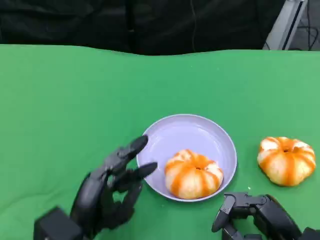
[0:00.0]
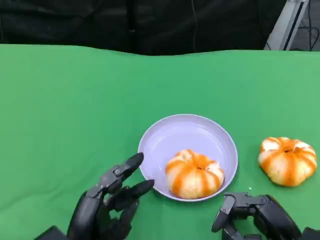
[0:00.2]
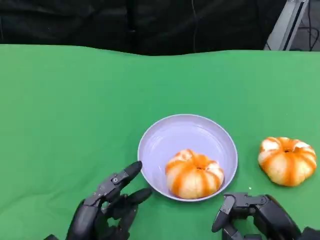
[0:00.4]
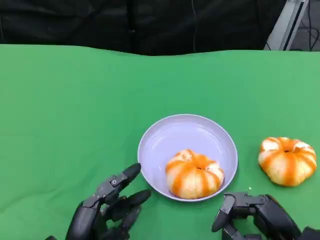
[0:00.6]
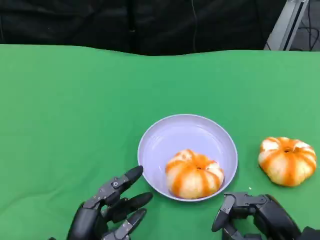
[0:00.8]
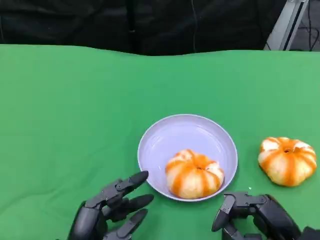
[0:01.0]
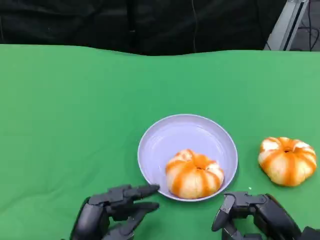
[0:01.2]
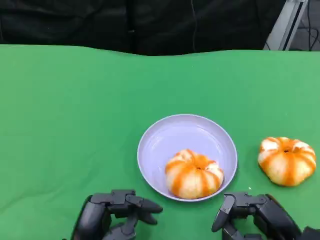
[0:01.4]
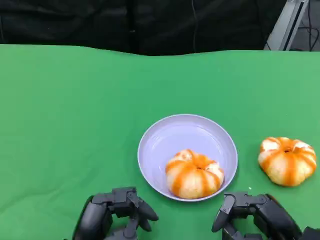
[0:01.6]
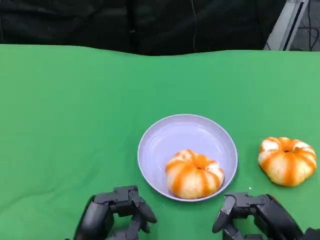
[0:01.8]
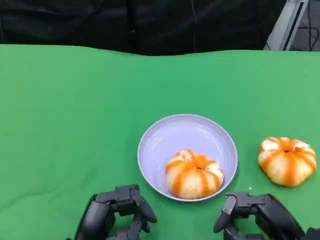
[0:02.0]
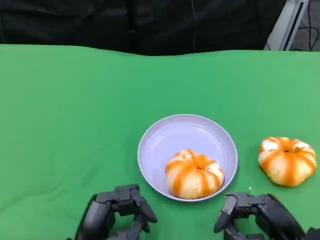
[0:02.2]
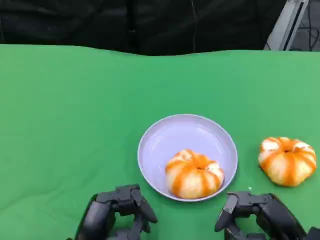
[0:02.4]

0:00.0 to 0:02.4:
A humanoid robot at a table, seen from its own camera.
Task of the whole recording: Grasp the bread from the table and place it into the plate.
0:00.0 to 0:01.2: The hands make only small movements.
0:01.2 to 0:02.4: Both hands stay about where they are.

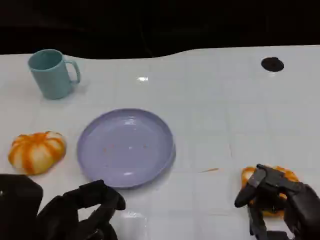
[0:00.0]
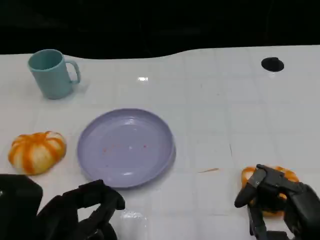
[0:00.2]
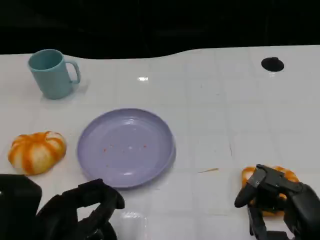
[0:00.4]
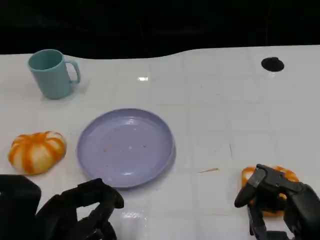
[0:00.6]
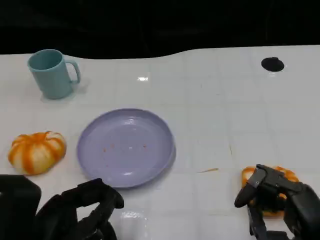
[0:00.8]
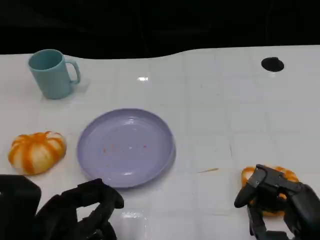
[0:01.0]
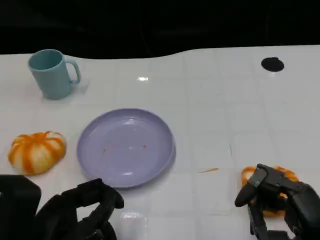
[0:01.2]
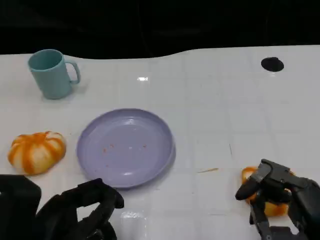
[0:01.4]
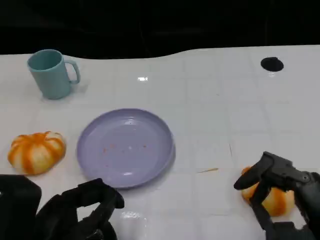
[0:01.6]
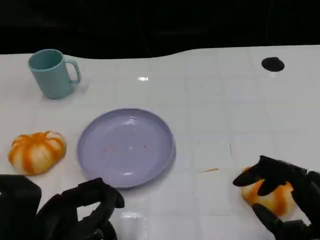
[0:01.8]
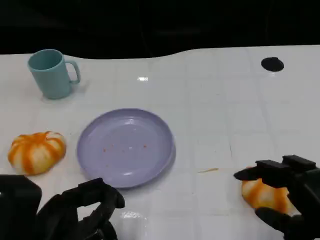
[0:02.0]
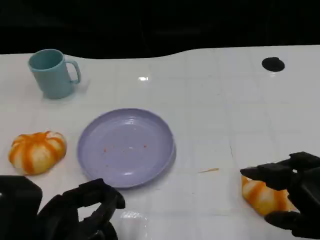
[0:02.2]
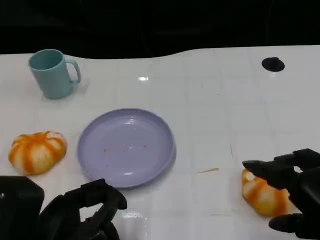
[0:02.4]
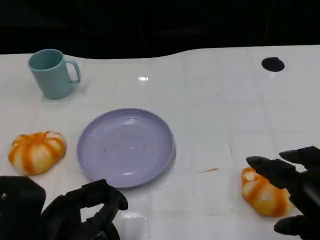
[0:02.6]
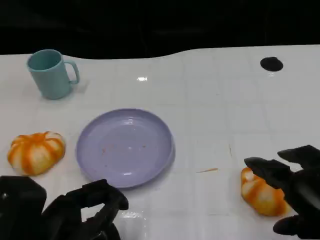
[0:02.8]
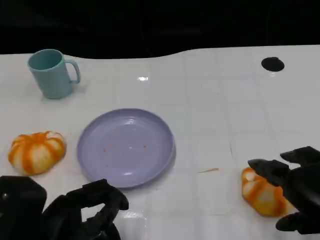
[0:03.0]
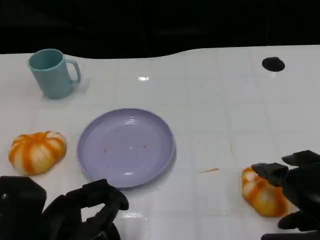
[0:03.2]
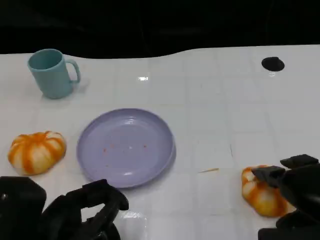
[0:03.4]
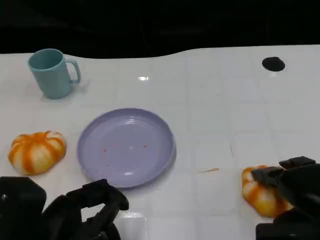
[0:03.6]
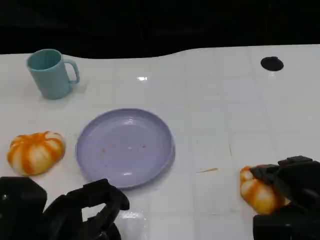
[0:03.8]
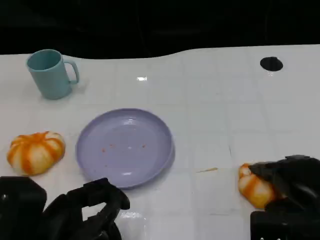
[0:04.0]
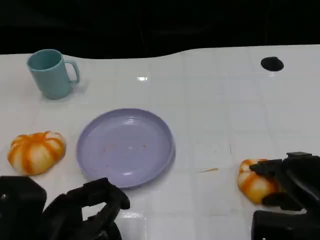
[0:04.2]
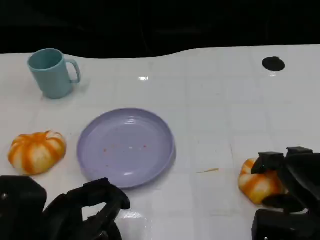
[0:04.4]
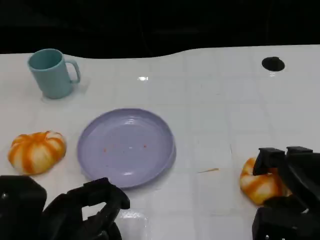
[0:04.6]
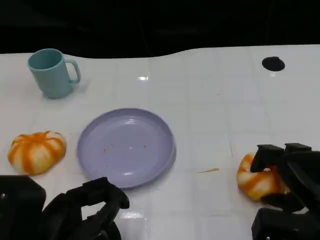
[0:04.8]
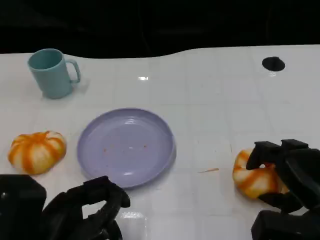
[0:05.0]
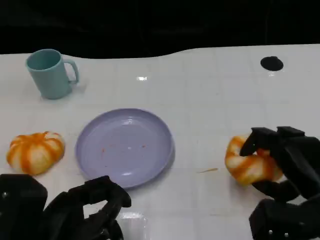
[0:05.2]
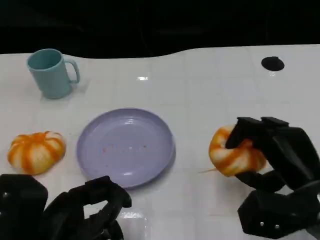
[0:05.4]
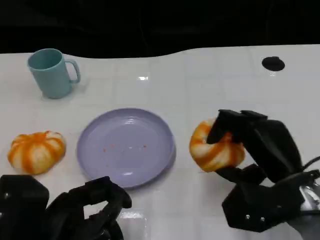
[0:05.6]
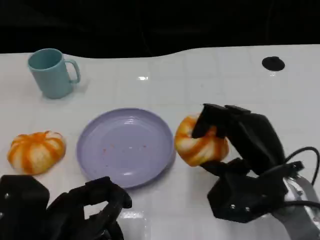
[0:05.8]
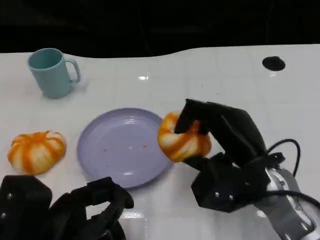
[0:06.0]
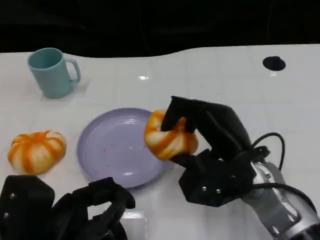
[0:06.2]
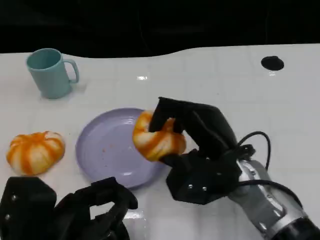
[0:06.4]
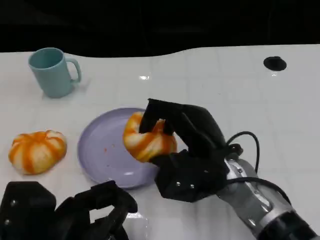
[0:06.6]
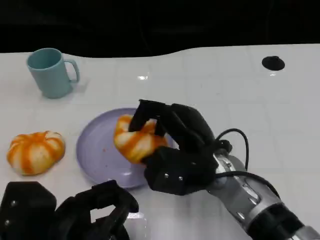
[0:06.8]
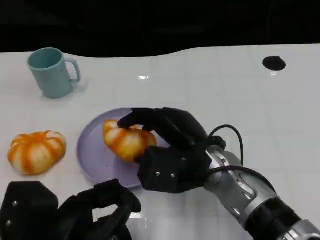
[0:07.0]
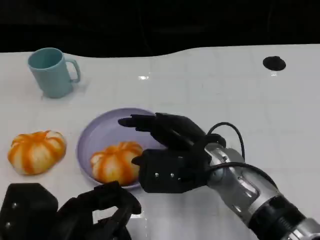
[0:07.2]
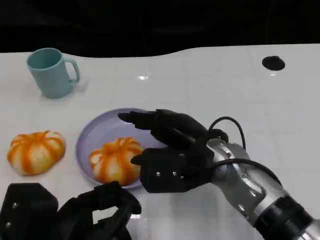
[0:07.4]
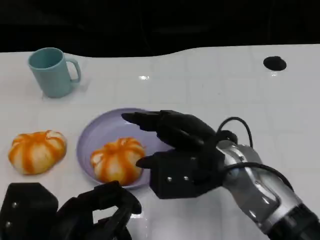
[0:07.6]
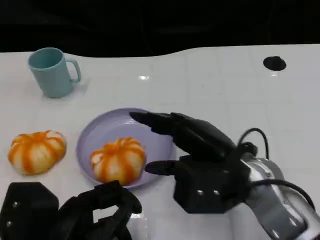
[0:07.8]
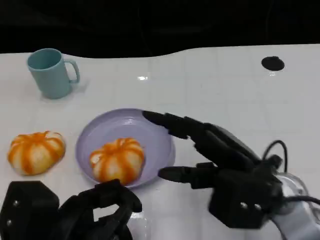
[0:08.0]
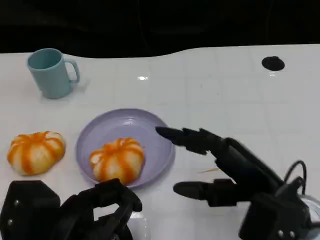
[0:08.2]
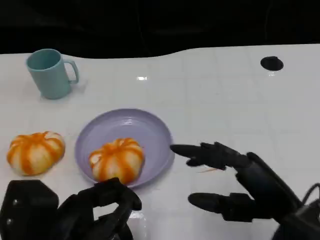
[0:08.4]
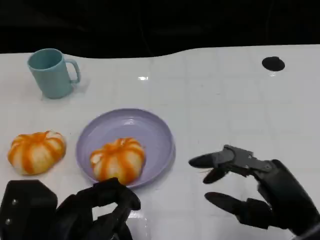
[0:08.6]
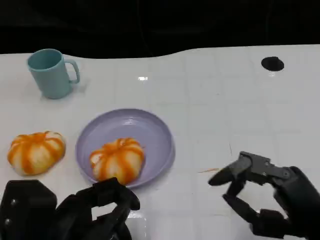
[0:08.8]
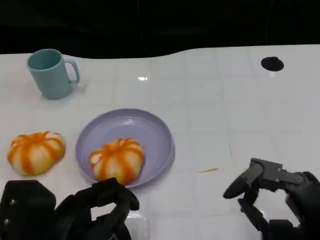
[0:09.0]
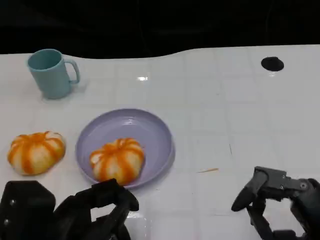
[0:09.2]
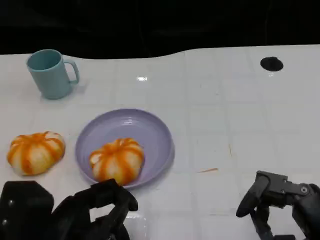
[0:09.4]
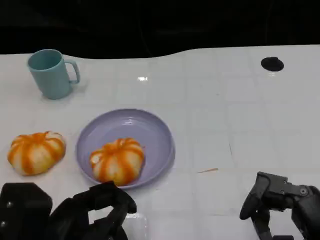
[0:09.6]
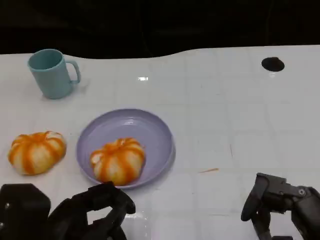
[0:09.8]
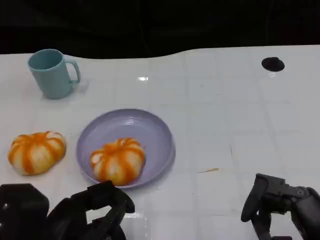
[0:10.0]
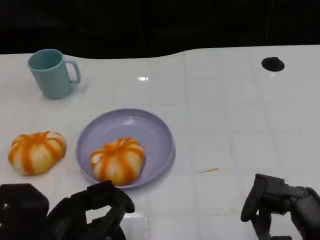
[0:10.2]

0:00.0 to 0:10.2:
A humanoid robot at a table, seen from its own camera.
Task of the whole recording: Grasp the bread from the table and place it into the plate.
0:00.0 to 0:01.4: Neither hand changes place.
0:01.4 to 0:03.0: The right hand ends up about 5 cm from where it was.
0:03.0 to 0:04.4: The right hand travels downward and forward by some 10 cm.
0:04.4 to 0:05.8: The right hand heads to the left, covering approximately 10 cm.
0:05.8 to 0:07.2: The right hand heads to the left, covering approximately 10 cm.
0:07.2 to 0:08.8: The right hand heads to the right and backward, covering some 20 cm.
0:08.8 to 0:10.2: The hands stay close to where they were, moving slightly.

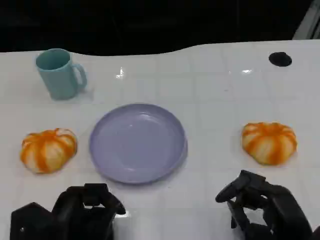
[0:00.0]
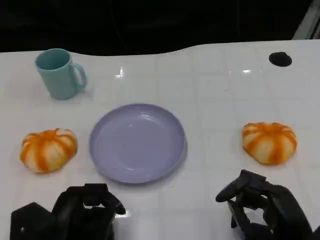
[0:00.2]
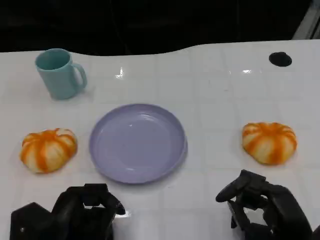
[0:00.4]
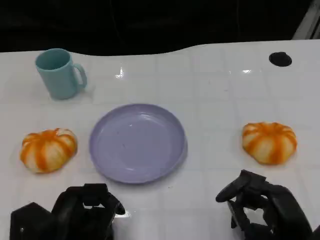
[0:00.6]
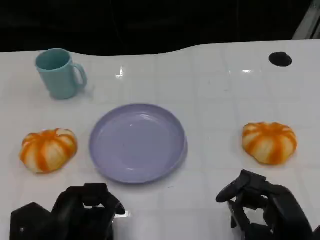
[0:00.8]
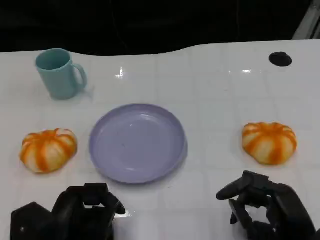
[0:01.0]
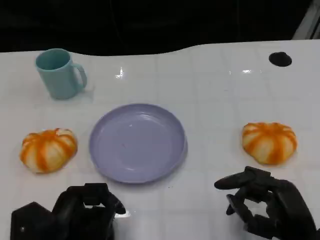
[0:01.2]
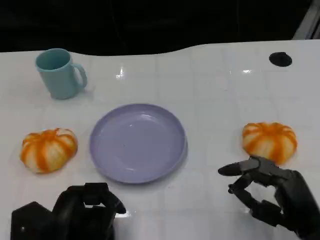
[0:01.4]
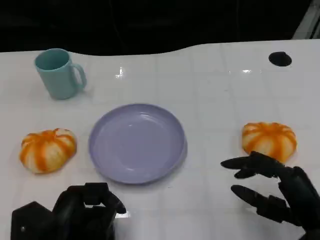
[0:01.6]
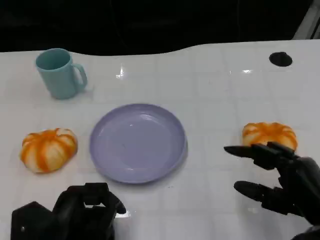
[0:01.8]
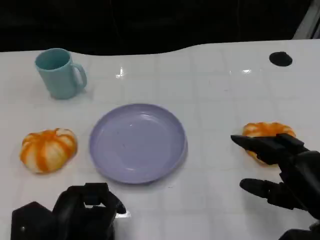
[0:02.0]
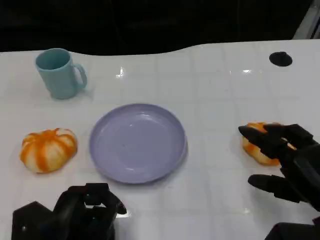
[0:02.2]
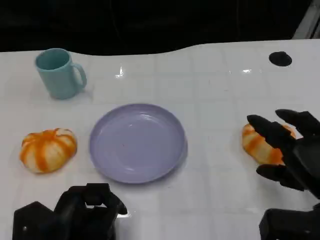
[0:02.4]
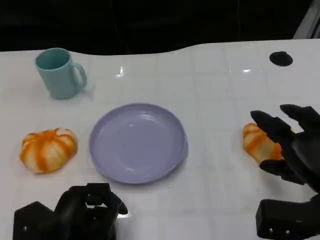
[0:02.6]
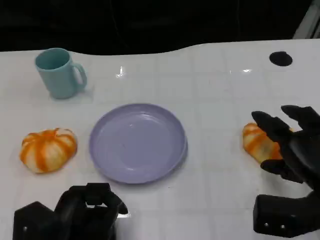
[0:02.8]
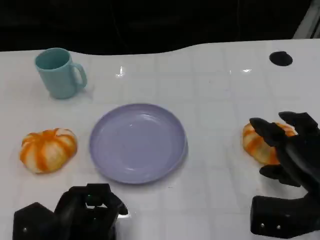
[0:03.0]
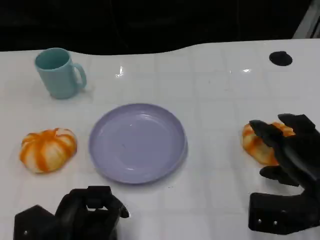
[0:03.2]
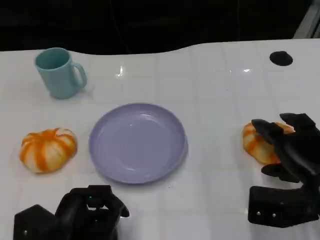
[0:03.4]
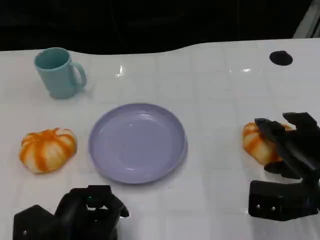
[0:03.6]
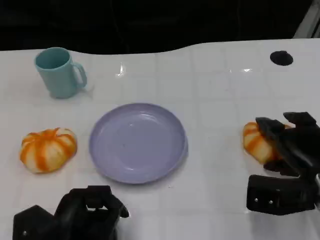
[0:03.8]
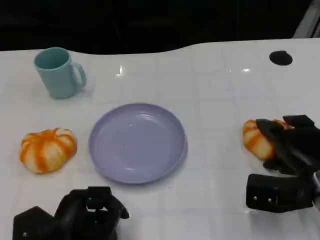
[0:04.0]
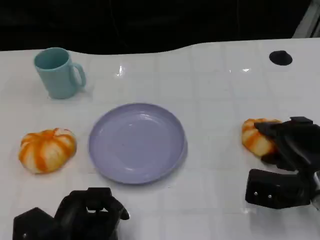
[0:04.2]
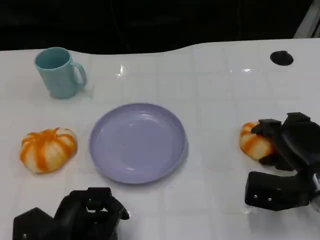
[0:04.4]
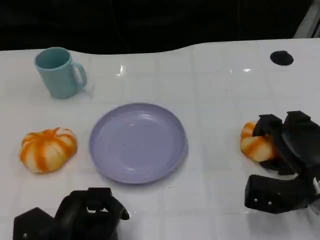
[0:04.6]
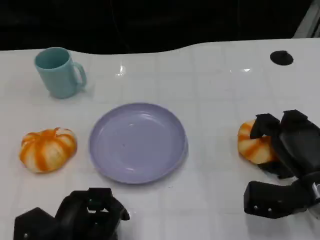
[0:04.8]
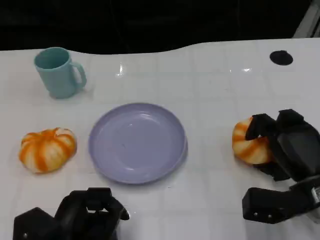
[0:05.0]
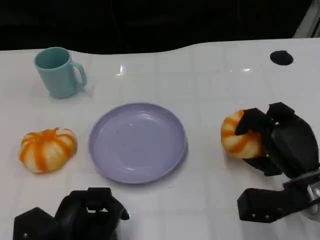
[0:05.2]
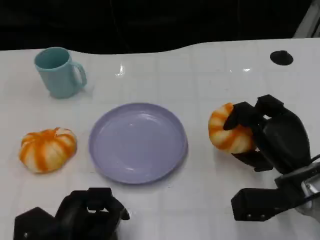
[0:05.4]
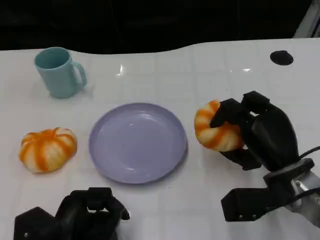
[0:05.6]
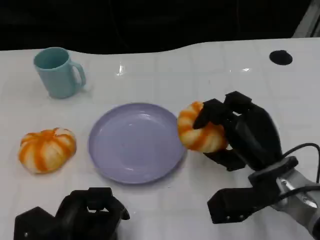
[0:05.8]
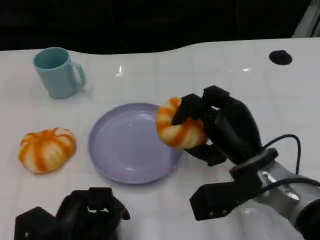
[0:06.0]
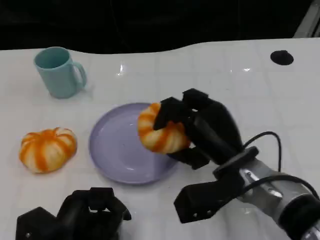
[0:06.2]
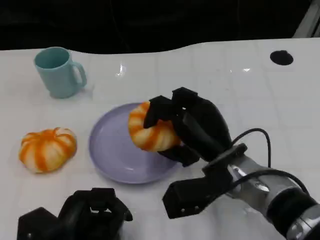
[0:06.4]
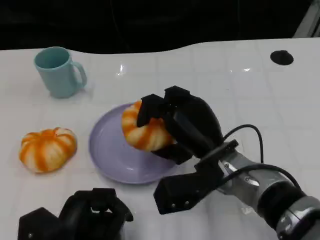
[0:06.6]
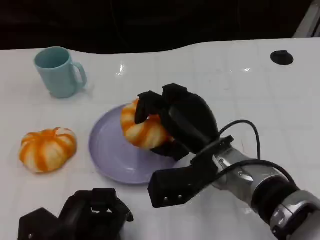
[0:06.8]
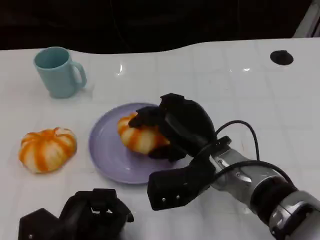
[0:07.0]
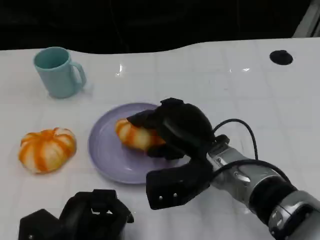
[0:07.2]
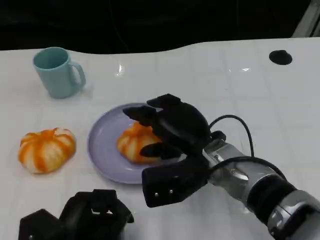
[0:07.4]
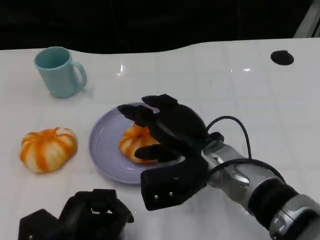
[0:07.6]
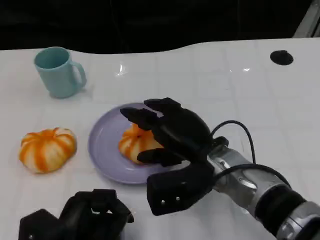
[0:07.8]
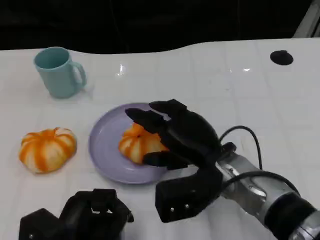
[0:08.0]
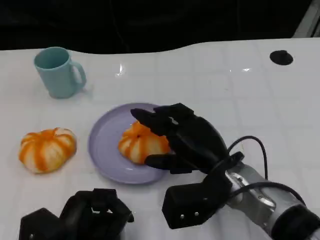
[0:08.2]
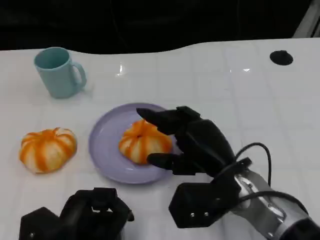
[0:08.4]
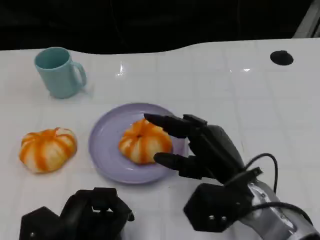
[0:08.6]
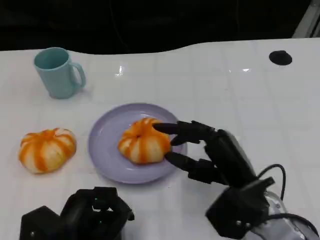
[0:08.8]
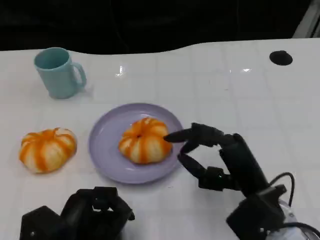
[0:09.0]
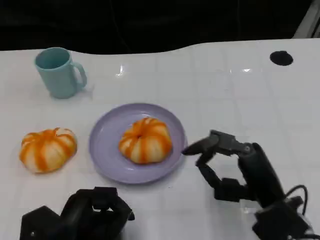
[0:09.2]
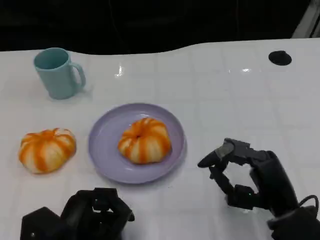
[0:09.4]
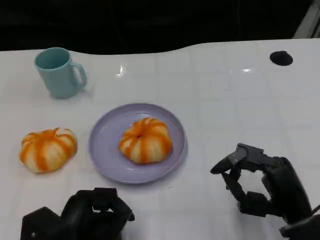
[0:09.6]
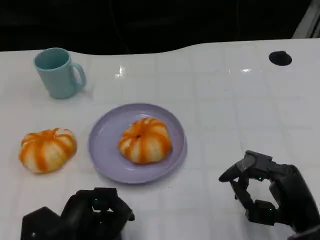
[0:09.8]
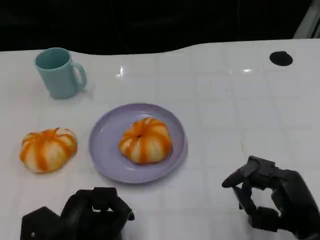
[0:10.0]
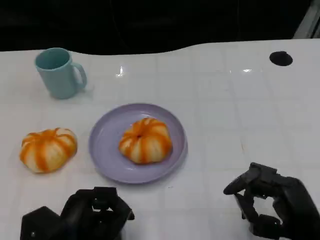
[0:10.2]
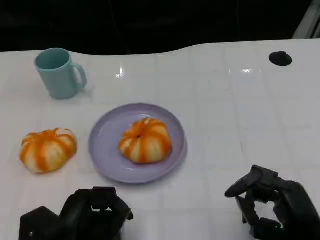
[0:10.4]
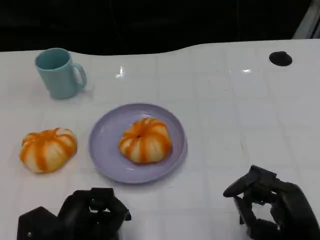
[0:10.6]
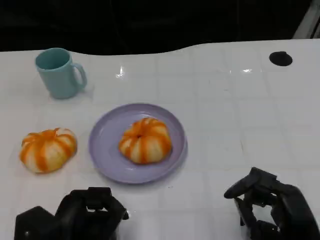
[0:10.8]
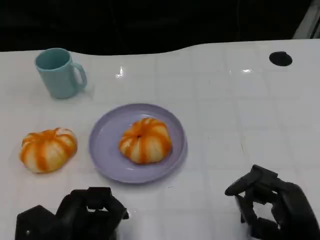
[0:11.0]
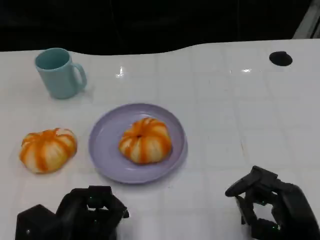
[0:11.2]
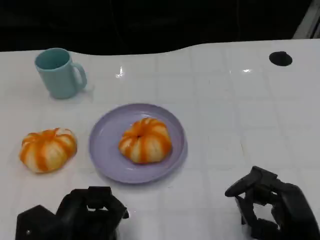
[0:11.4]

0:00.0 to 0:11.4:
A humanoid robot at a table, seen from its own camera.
Task of the whole recording: Grasp the bread from the table and place it into the plate.
0:00.0 to 0:01.4: The hands make only small movements.
0:01.4 to 0:02.8: The right hand travels forward by roughly 5 cm.
0:02.8 to 0:04.2: The right hand ends up approximately 5 cm from where it was.
0:04.2 to 0:05.6: The right hand travels to the left by some 5 cm.
0:05.6 to 0:07.2: The right hand is displaced to the left by about 10 cm.
0:07.2 to 0:08.6: The right hand moves approximately 5 cm.
0:08.6 to 0:10.0: The right hand travels to the right and backward by about 10 cm.
0:10.0 to 0:11.4: The hands make only small movements.
